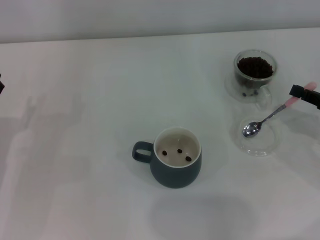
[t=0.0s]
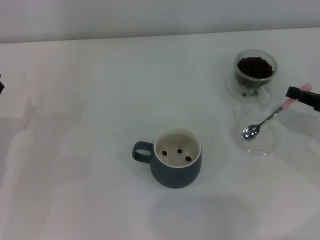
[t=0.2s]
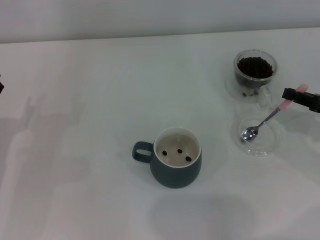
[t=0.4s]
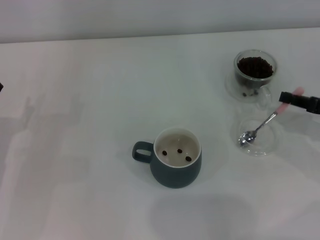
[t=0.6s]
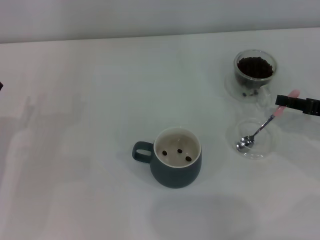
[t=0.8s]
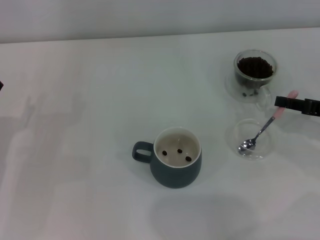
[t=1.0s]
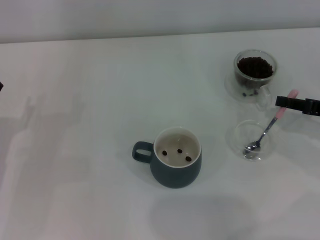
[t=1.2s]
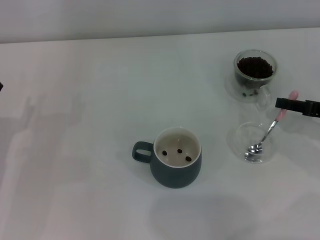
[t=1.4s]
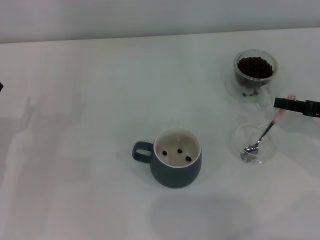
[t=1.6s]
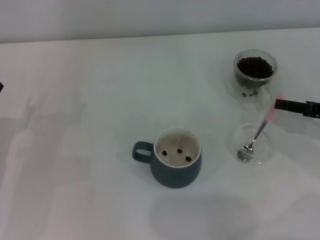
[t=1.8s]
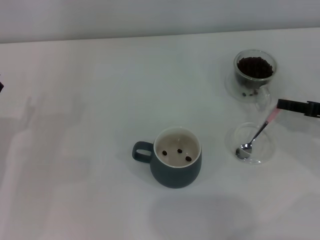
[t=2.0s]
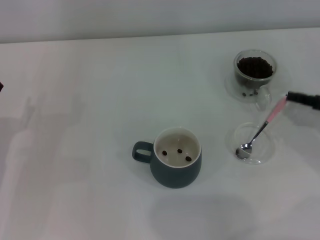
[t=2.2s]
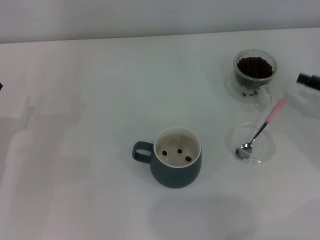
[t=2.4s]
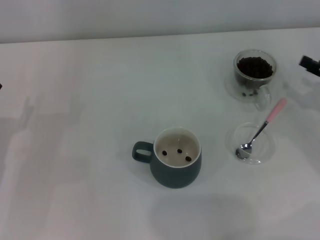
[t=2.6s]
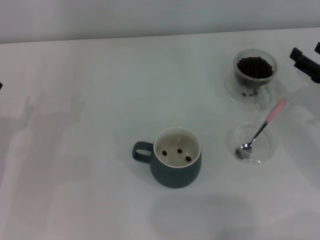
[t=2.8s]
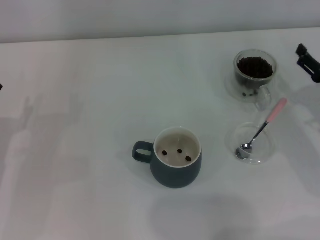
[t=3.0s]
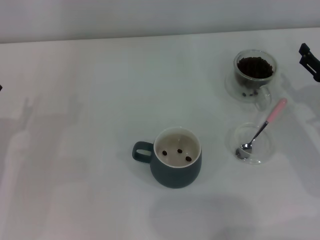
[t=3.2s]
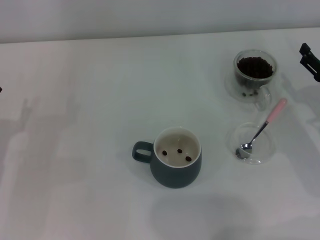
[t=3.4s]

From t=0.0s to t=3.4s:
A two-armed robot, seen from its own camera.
Task of the whole recording: Use a pink spoon to take out the coffee beans from the glass and pour them into the gray cup.
Step, from t=0.0s to t=2.2s: Place the spoon back in its original place with the right gripper.
From t=0.0s to t=1.6s: The grippers move only a little.
From t=1.6s to t=3.4s: The right gripper opens up.
